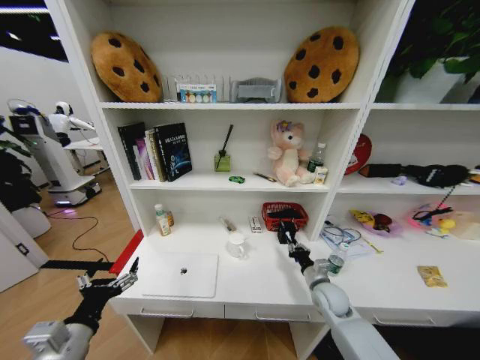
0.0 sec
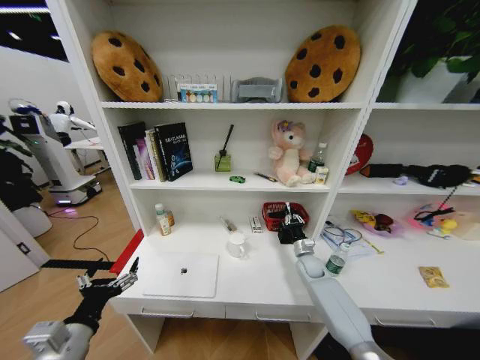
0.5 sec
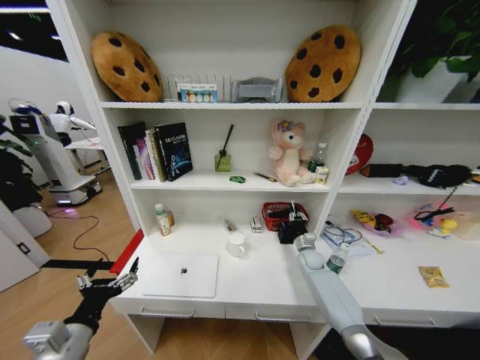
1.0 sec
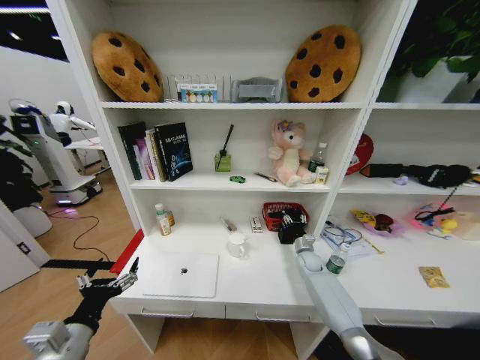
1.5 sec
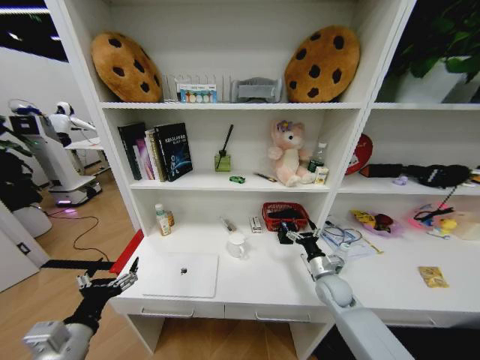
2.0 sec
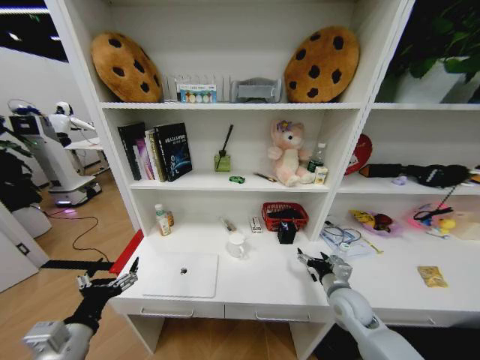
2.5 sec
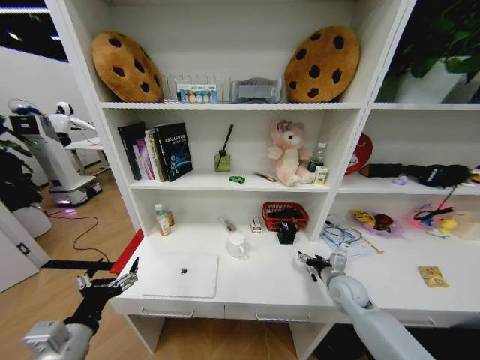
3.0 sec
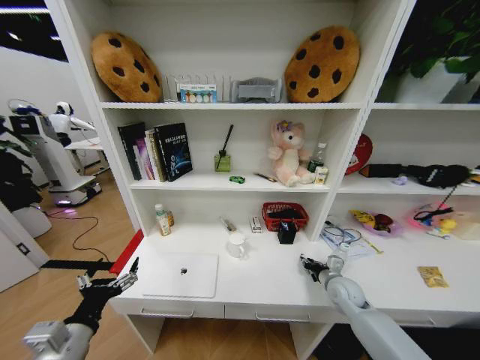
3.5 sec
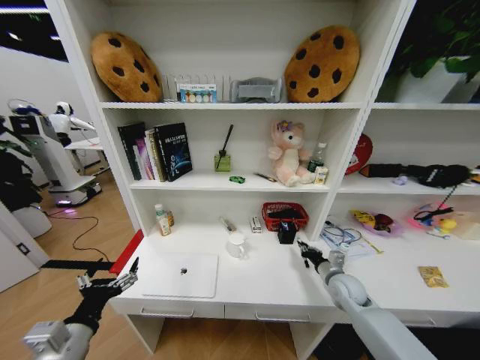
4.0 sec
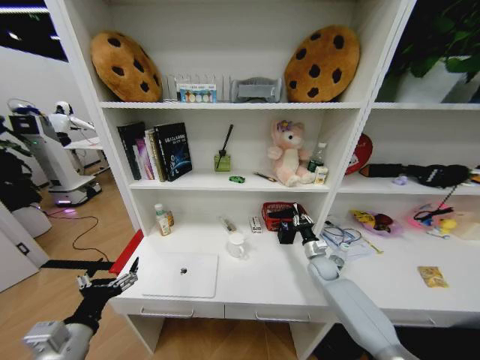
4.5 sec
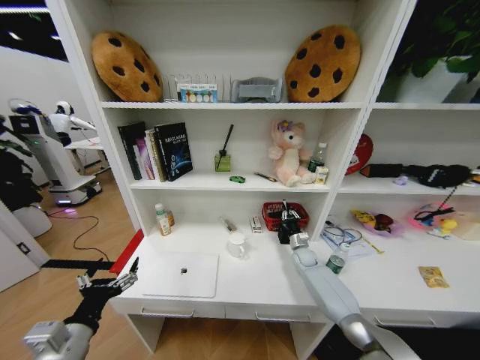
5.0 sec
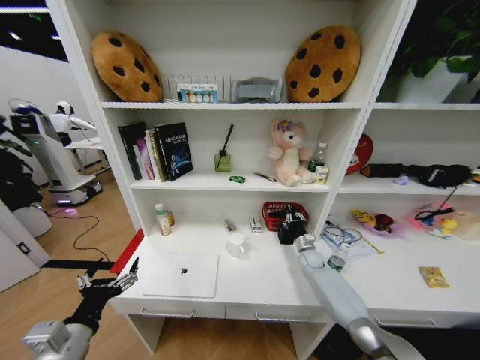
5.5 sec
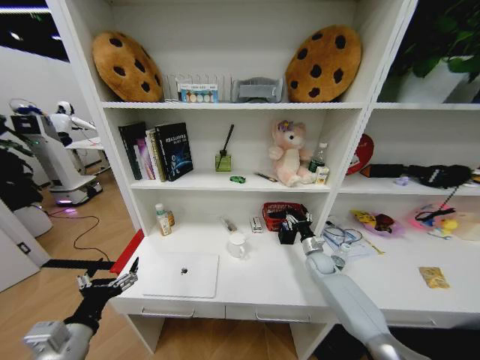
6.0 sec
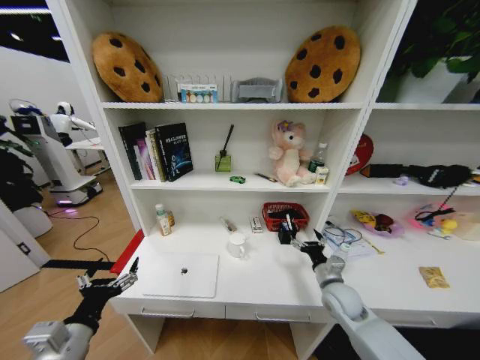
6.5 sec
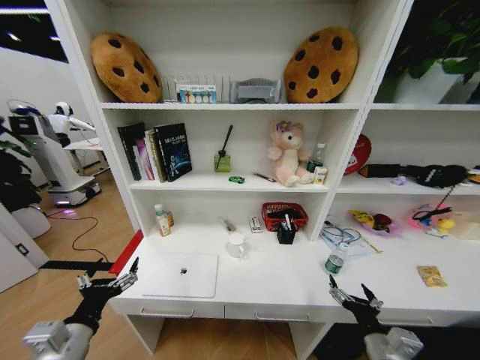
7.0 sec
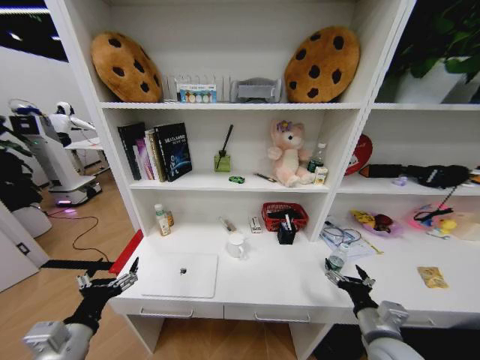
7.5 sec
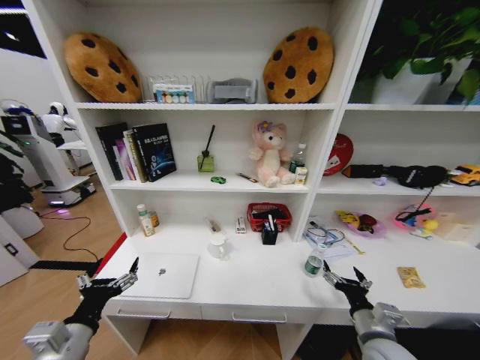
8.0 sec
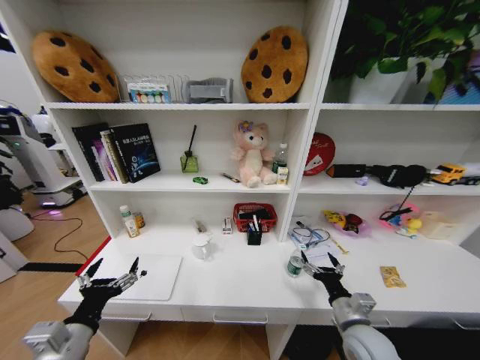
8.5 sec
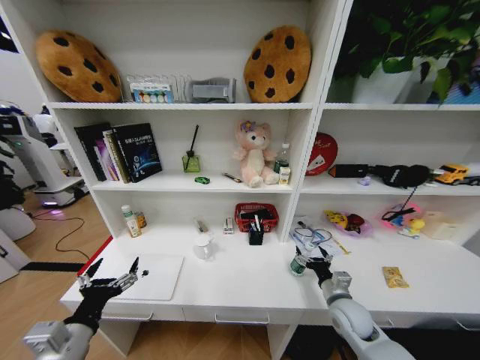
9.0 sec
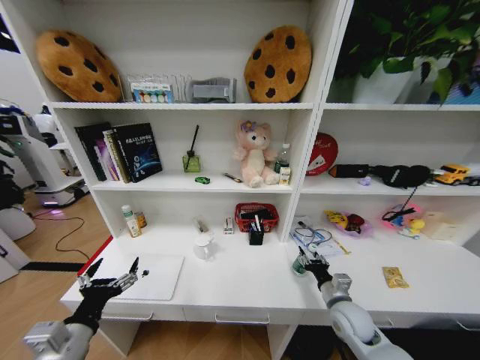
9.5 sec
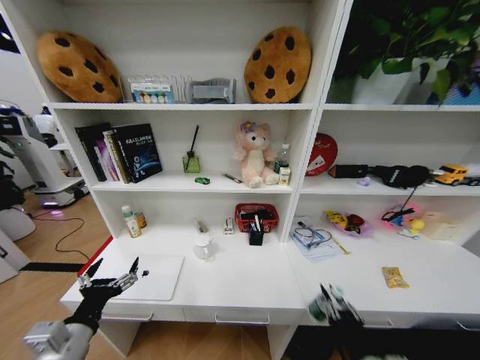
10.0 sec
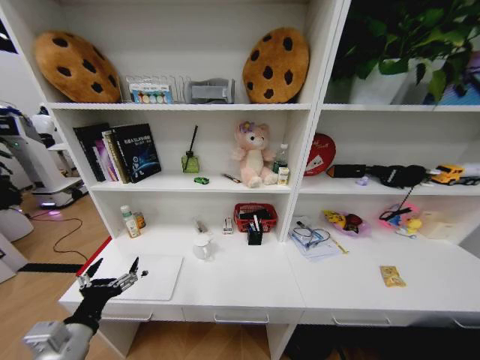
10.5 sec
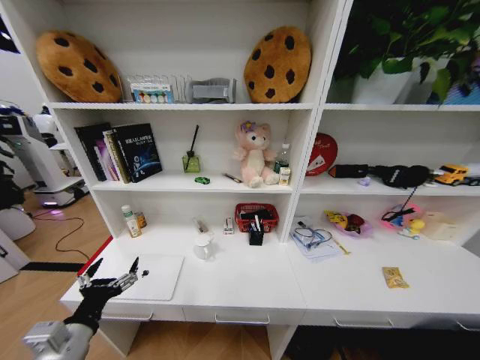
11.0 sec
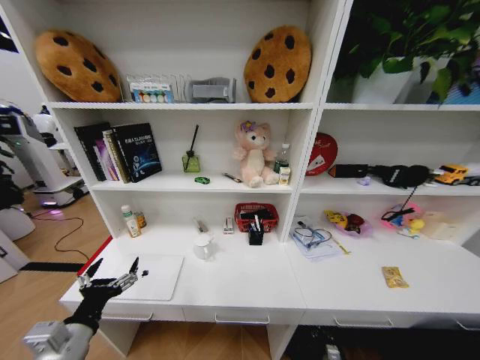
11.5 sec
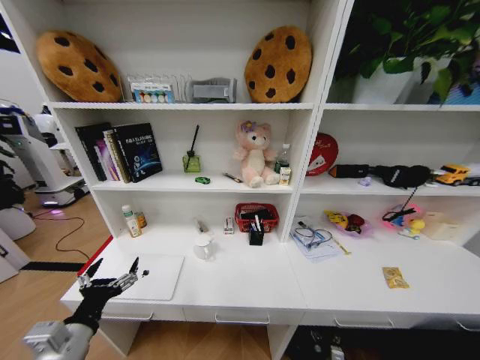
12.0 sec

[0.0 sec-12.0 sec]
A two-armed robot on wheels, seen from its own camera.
Task of the whole recording: Organize the objects on the table.
0.0 sec to 2.0 sec: The right gripper travels forward and back again, some 15 cm each way, and opens up.
2.0 sec to 4.0 sec: The right gripper closes.
4.0 sec to 6.0 sec: The right gripper is displaced forward by approximately 10 cm, and opens its fingers.
6.0 sec to 8.0 sec: The right gripper shifts roughly 30 cm backward.
8.0 sec to 10.0 sec: The right gripper shifts about 10 cm backward, and closes its fingers.
10.0 sec to 12.0 sec: The right gripper goes roughly 35 cm downward, and opens its fingers.

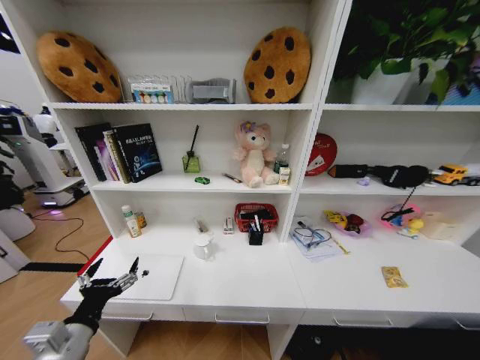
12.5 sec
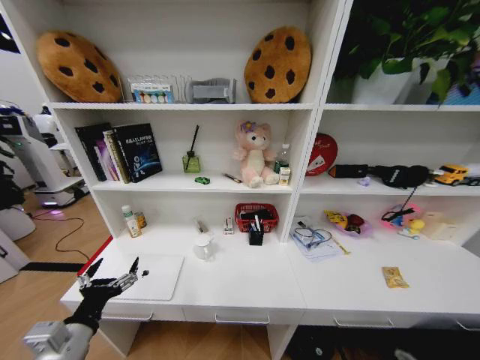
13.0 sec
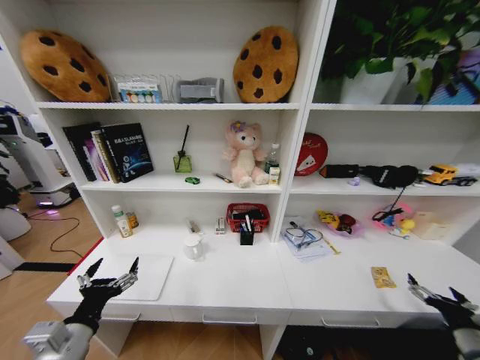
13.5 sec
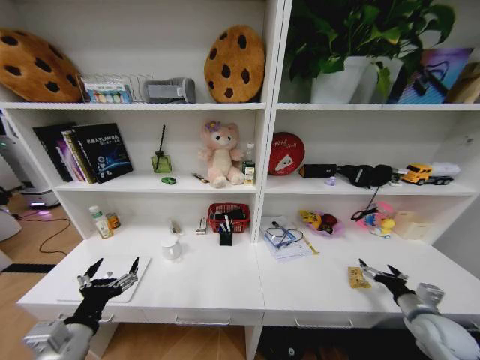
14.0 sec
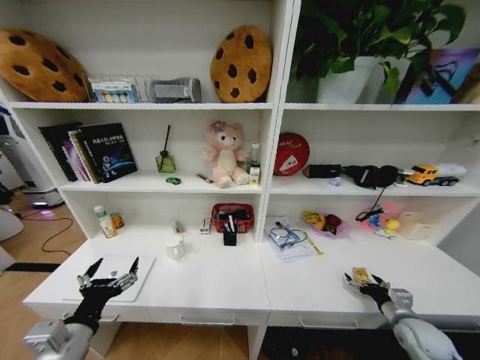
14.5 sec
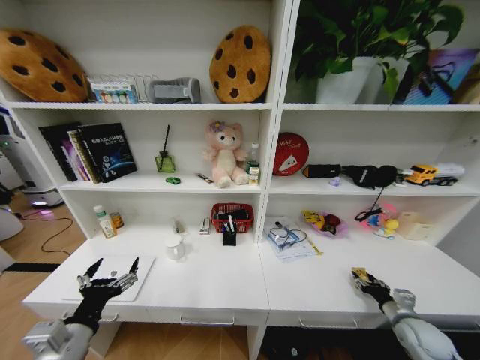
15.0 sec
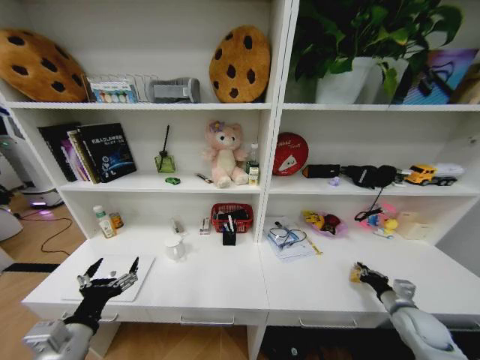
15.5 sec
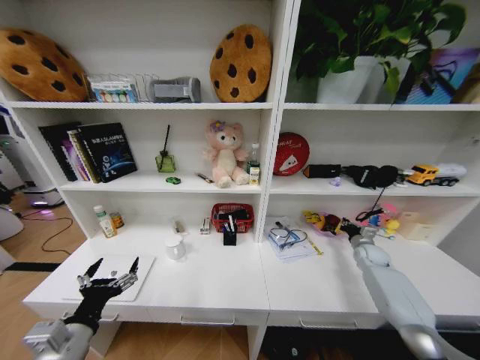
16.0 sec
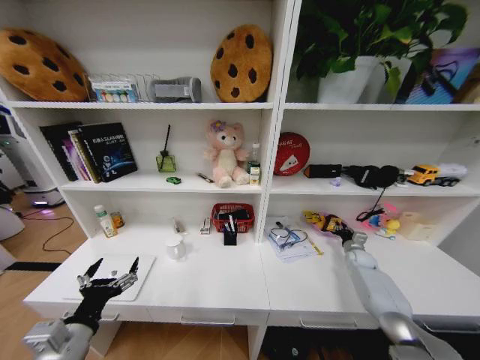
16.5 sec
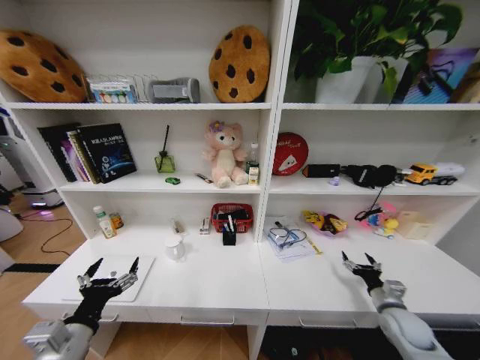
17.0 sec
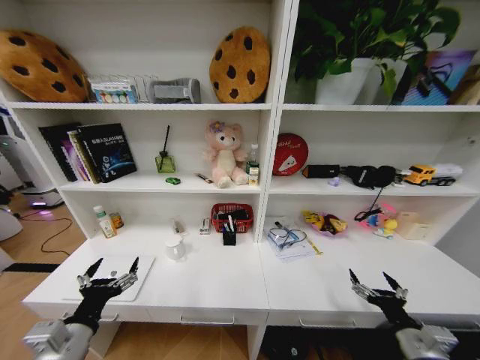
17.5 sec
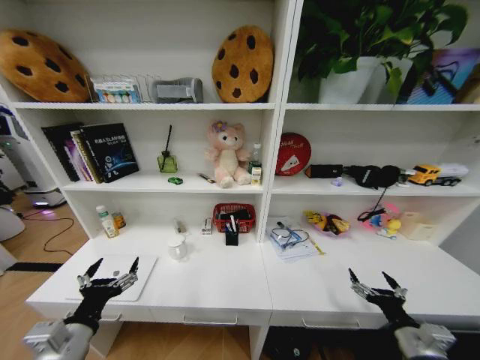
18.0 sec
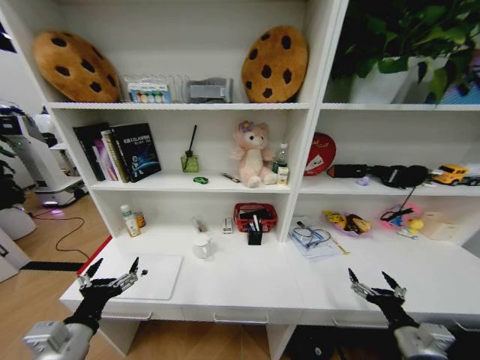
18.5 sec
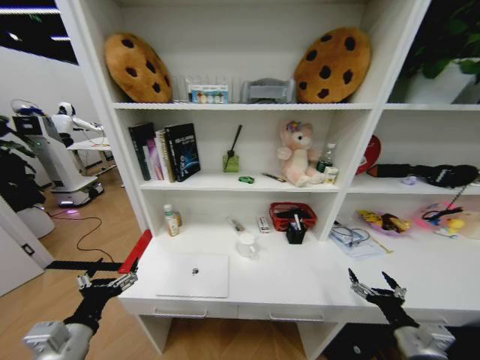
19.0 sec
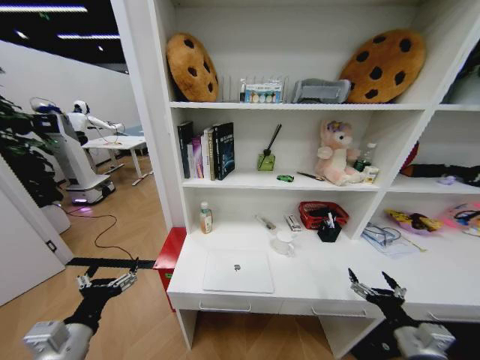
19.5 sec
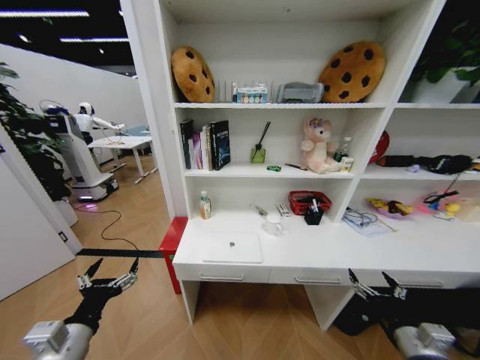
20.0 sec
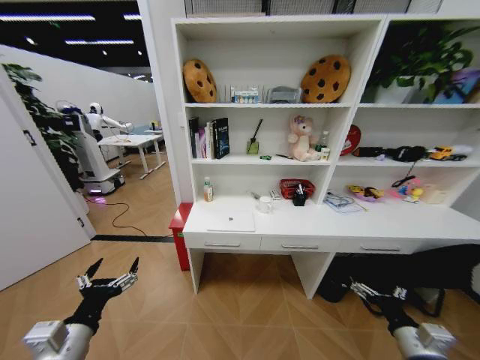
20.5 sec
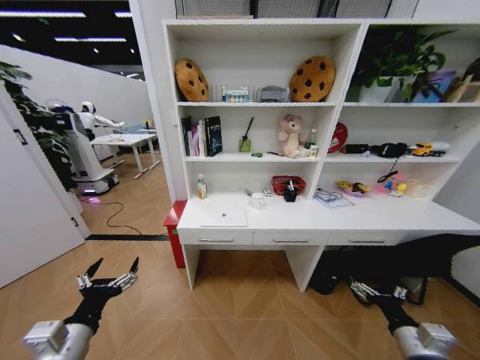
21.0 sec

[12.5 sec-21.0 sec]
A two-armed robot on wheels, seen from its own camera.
Task of the whole recording: Organize the objects on the table.
12.5 sec to 14.5 sec: The right gripper is displaced upward, forward and to the right by approximately 35 cm.
14.5 sec to 16.5 sec: The right gripper shifts approximately 25 cm forward, and closes its fingers.
16.5 sec to 19.0 sec: The right gripper travels backward by roughly 35 cm, and opens.
